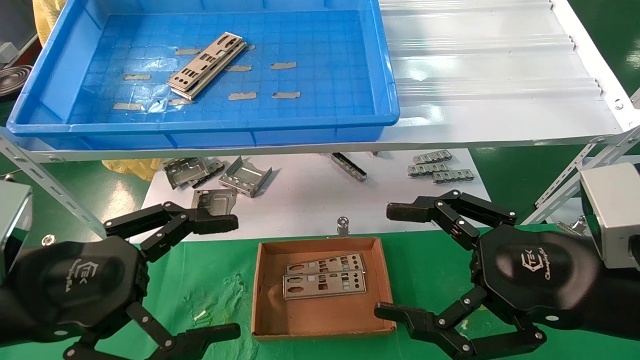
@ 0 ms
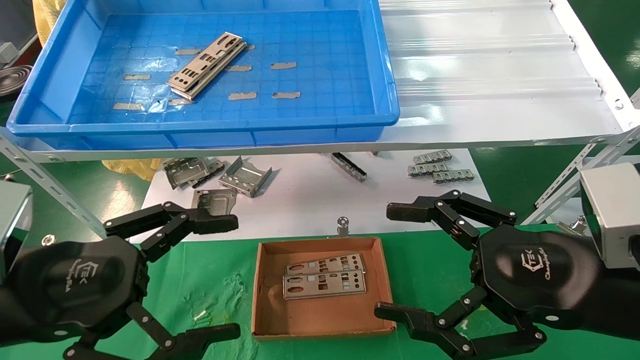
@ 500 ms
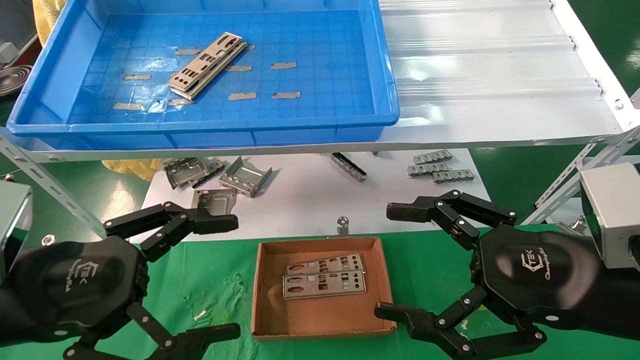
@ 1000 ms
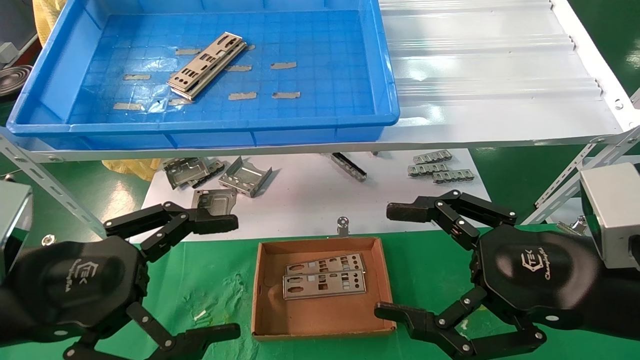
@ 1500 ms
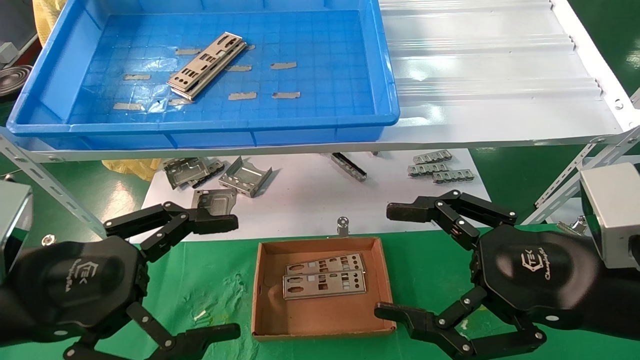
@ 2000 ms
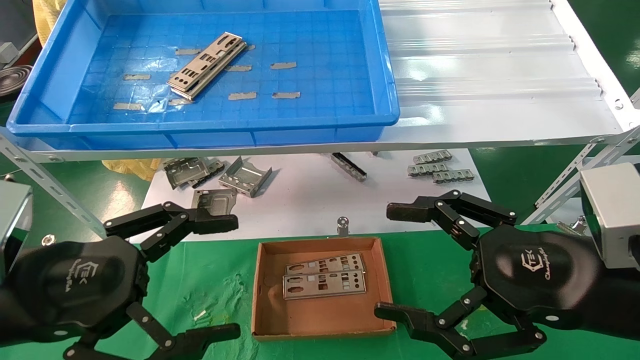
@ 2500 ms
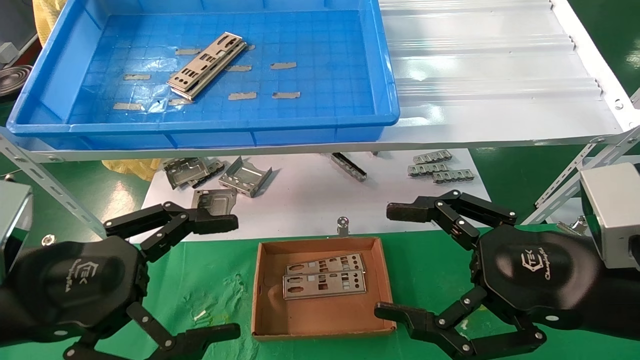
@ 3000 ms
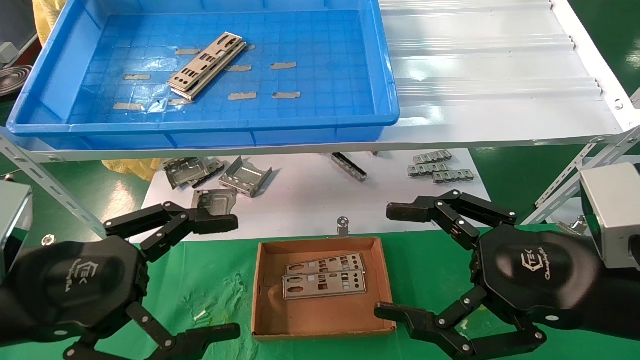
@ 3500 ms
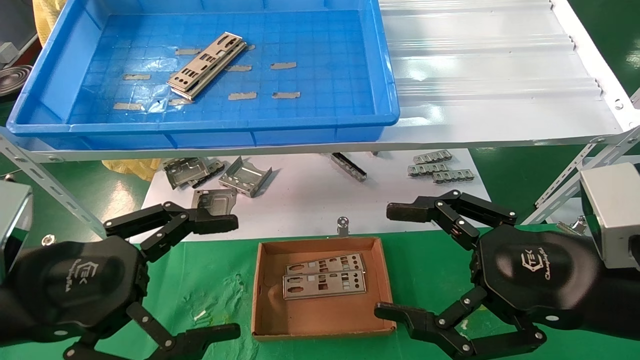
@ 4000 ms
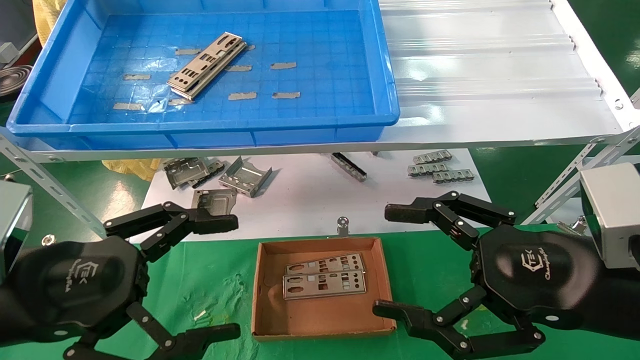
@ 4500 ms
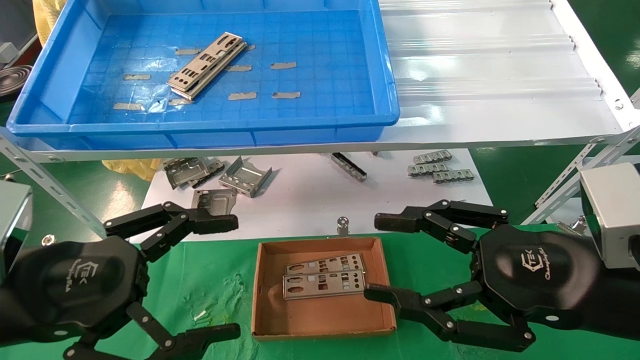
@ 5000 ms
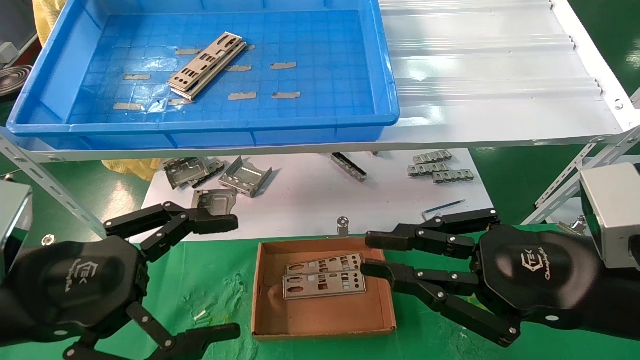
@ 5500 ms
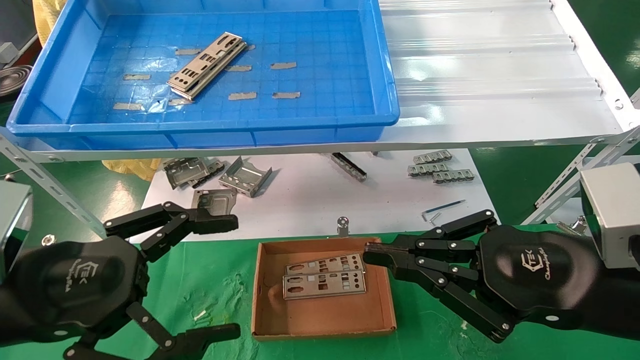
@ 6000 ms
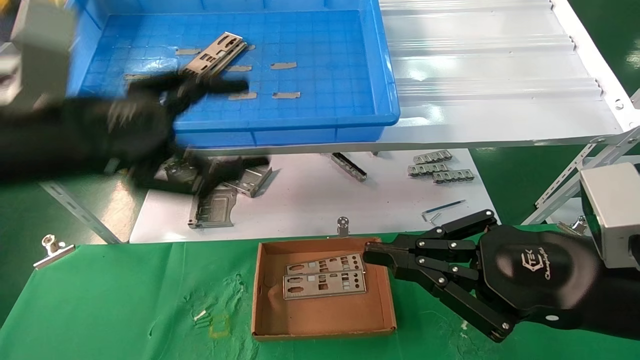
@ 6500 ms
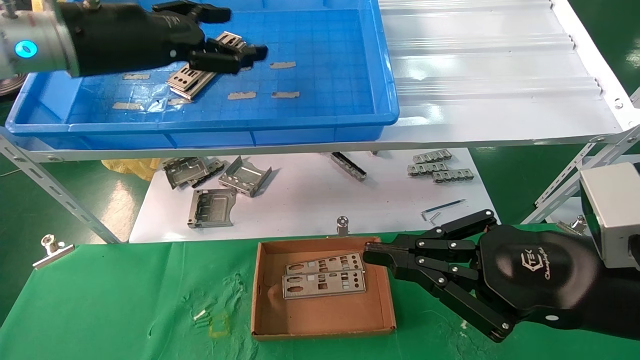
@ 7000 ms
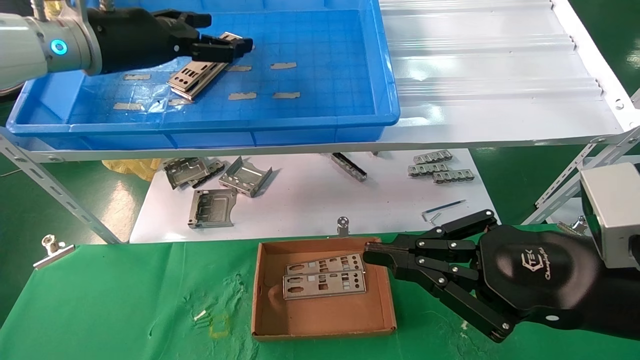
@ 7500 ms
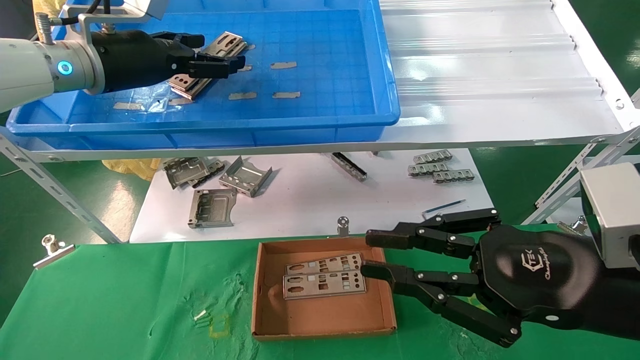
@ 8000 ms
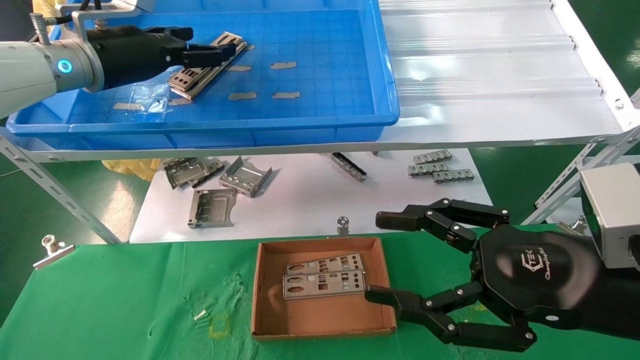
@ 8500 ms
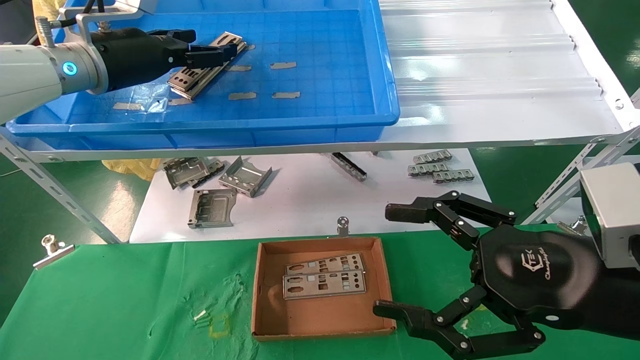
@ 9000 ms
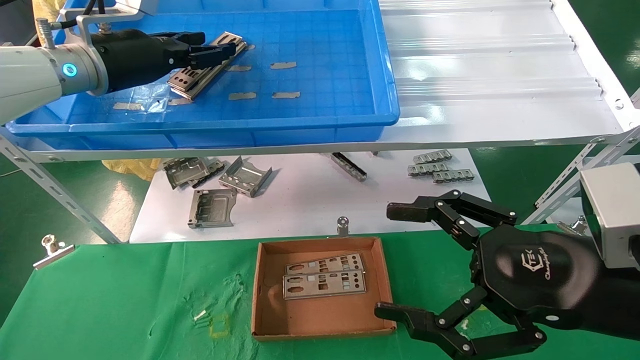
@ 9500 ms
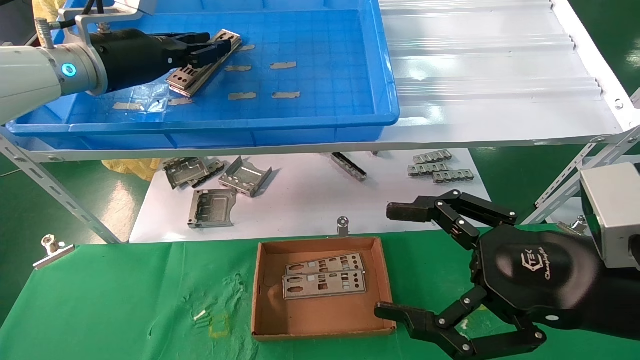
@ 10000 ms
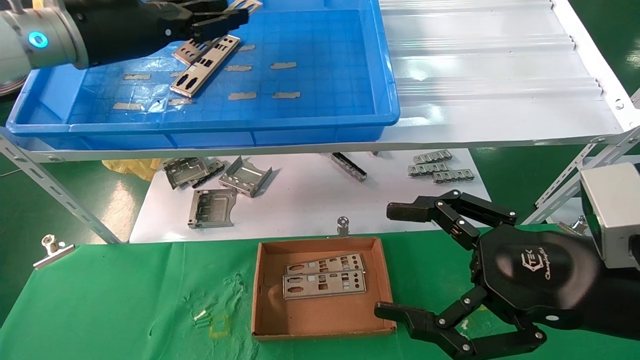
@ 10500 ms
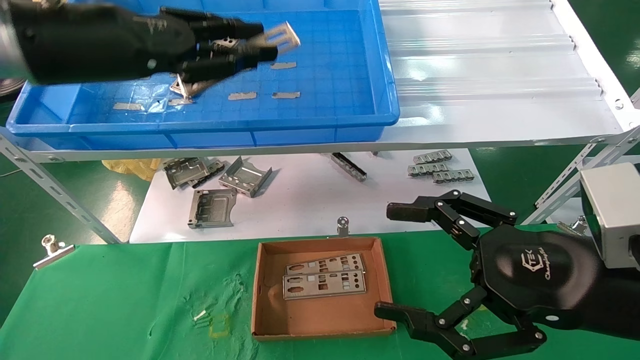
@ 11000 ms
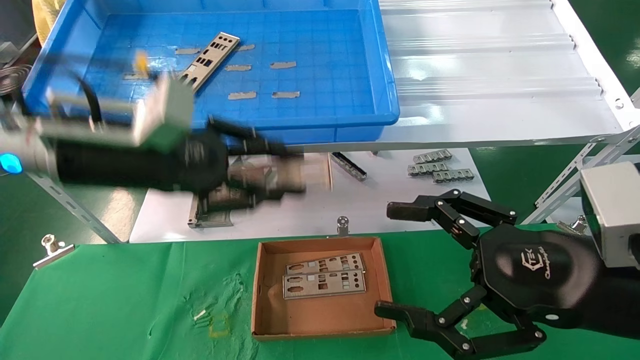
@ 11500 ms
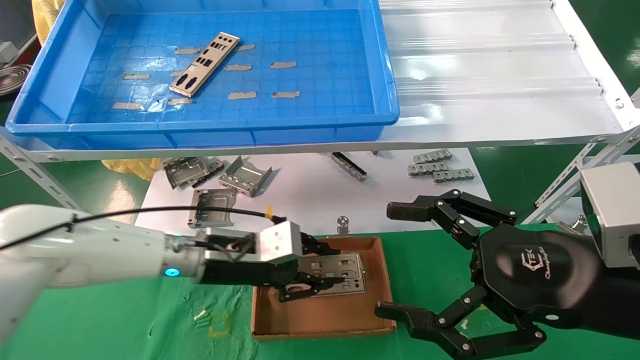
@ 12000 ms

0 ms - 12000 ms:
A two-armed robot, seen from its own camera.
Task of the whole recording: pick up the parts on the tray and put them in the cardboard box.
Step, 6500 ms - 9500 ms: Pick up the IO bracket from the container box.
0 ms - 4000 ms: The two grippers keep their place.
4000 ms - 6000 ms: The right gripper closes.
6000 ms - 8000 ms: The left gripper is displaced forward and upward by approximately 30 cm.
8000 ms - 10000 ms: The left gripper closes its fingers; the right gripper opens up.
10000 ms - 12000 ms: The left gripper shifts about 25 cm downward and to the right.

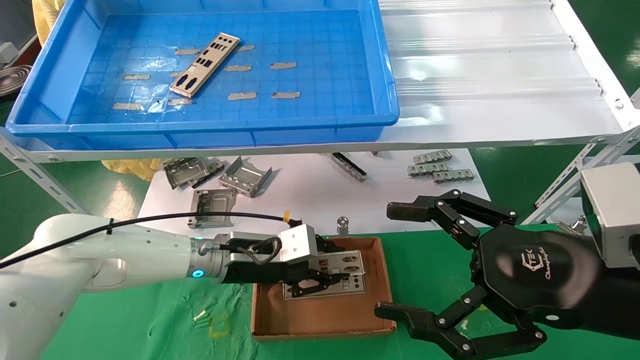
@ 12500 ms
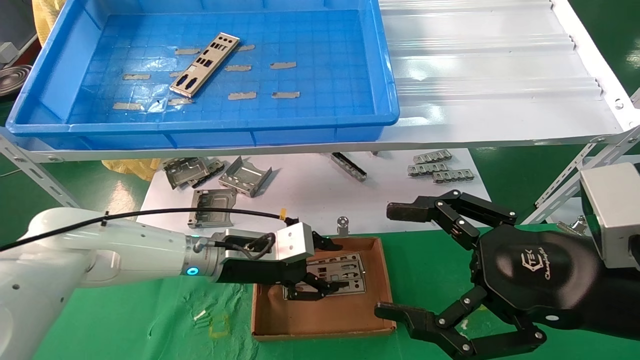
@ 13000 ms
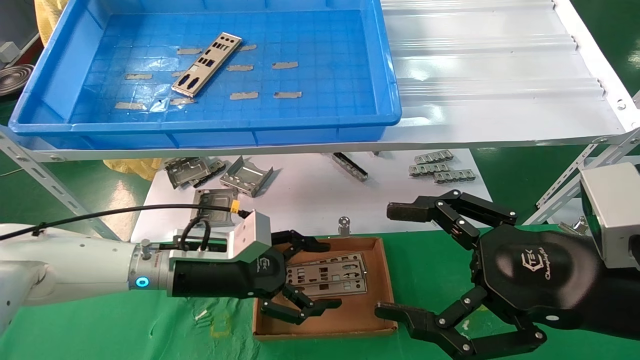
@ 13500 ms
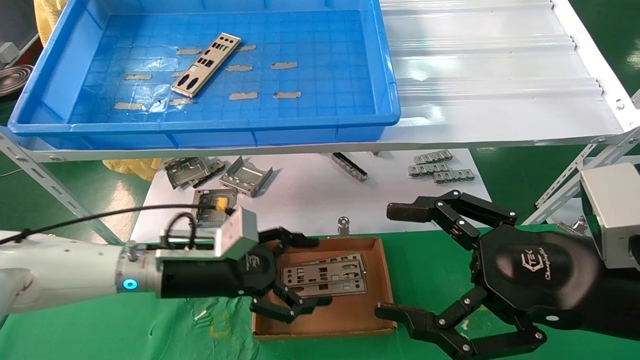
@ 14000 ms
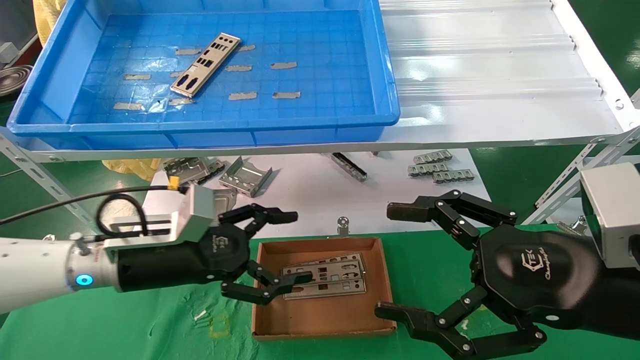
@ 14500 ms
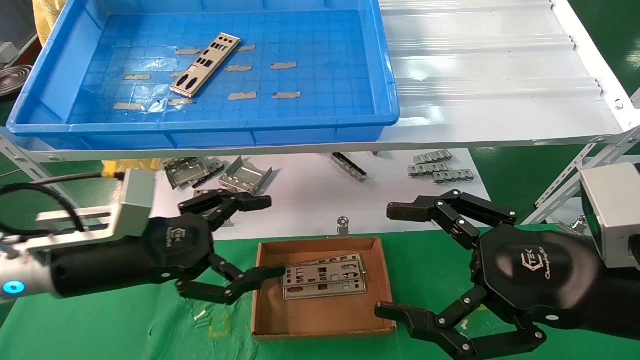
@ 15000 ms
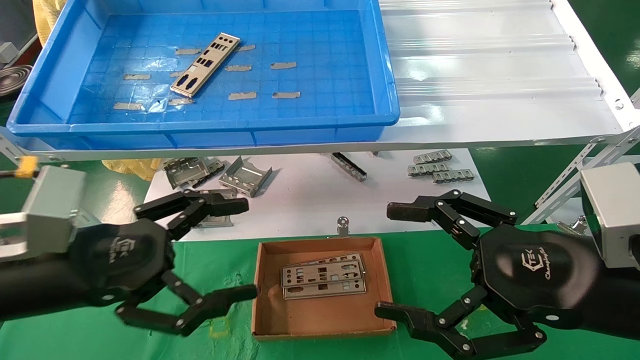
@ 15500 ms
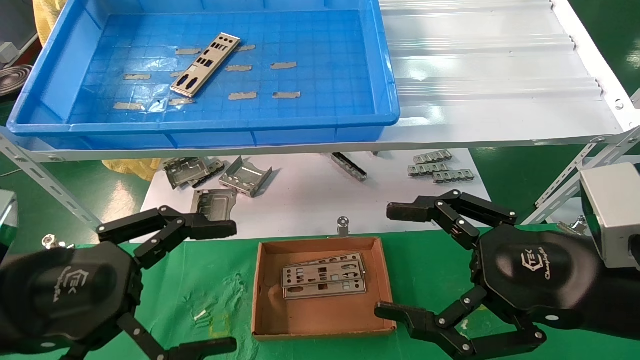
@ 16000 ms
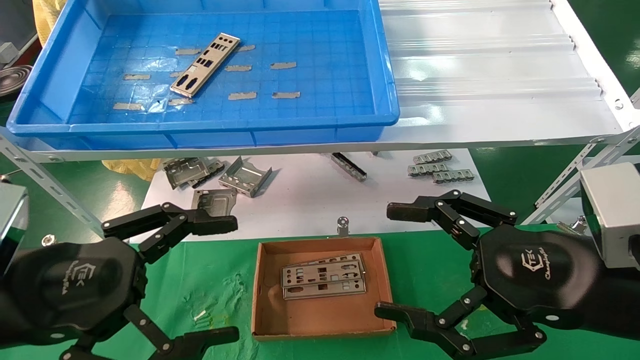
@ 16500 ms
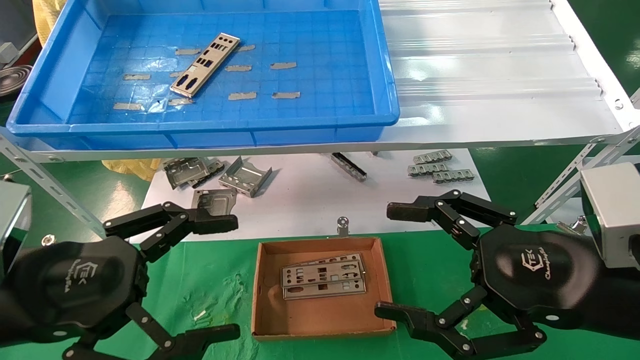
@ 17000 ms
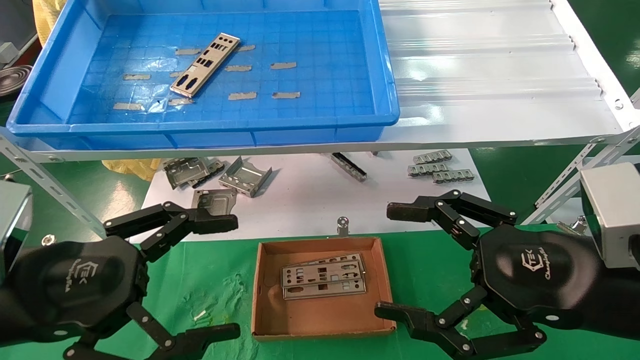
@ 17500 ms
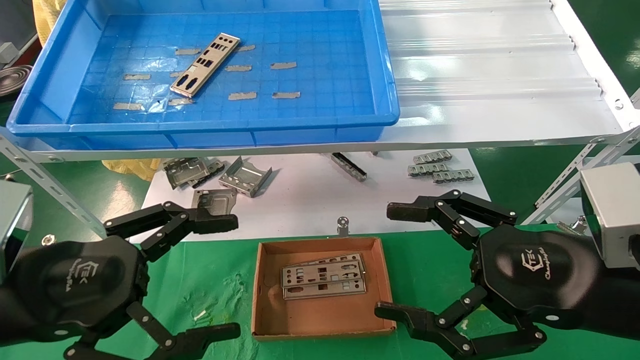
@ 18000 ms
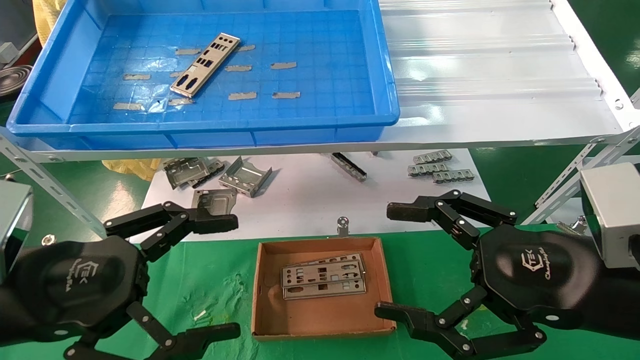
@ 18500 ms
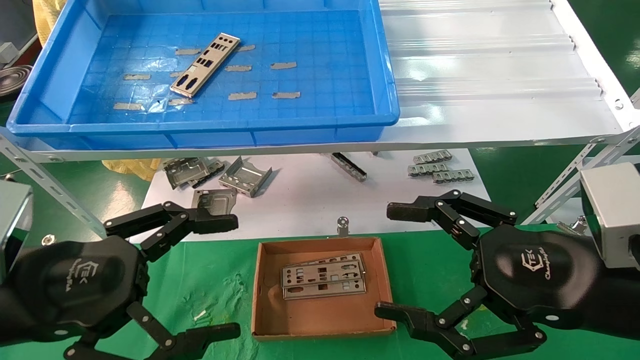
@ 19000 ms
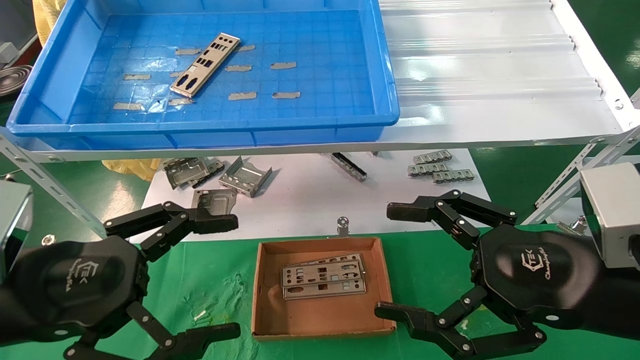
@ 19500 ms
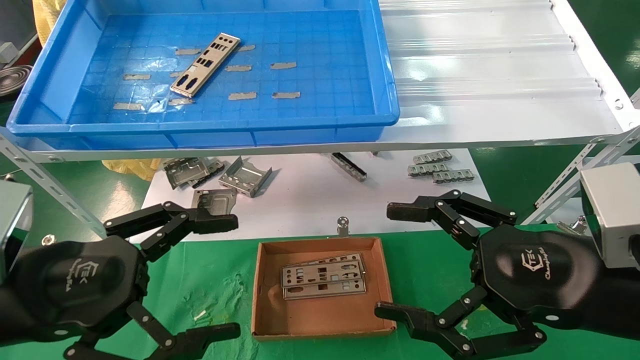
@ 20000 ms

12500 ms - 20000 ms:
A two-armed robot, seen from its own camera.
Task of the whole recording: pick up the parts on the tray and put them in the cardboard box.
12500 ms - 14500 ms: The left gripper heads to the left and backward, covering approximately 10 cm, and opens its fingers.
14500 ms - 16500 ms: The left gripper is displaced backward by approximately 15 cm.
16500 ms - 20000 ms: The two grippers keep their place.
